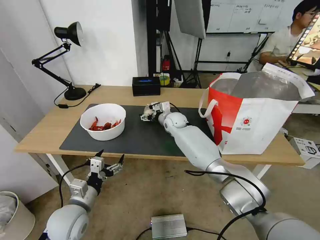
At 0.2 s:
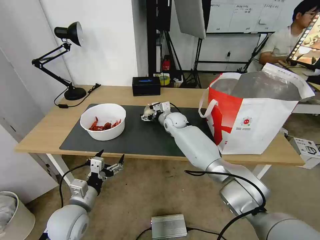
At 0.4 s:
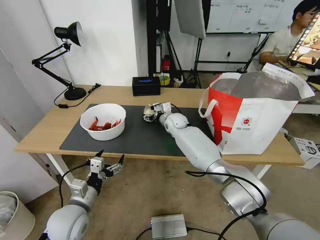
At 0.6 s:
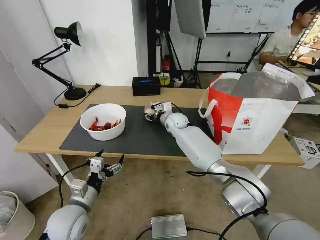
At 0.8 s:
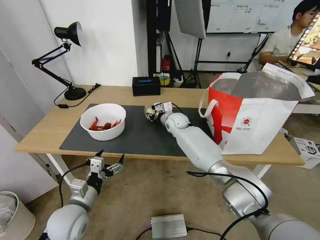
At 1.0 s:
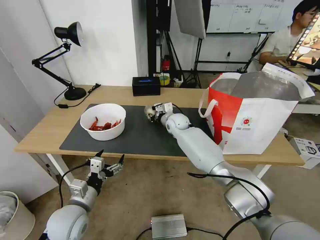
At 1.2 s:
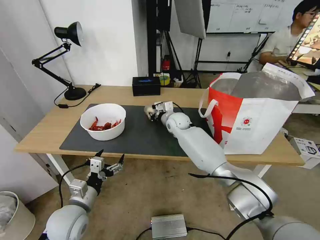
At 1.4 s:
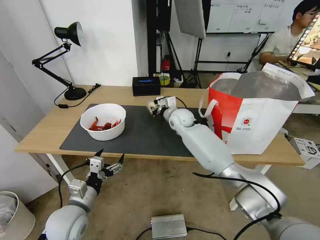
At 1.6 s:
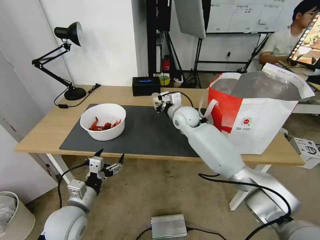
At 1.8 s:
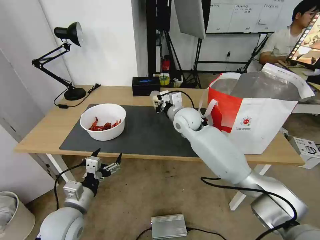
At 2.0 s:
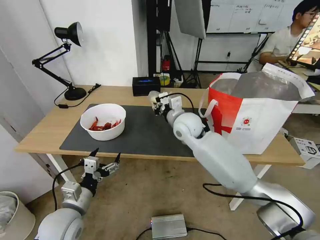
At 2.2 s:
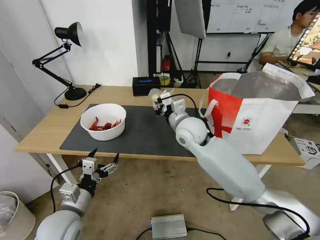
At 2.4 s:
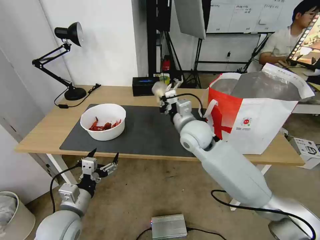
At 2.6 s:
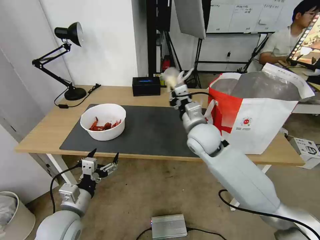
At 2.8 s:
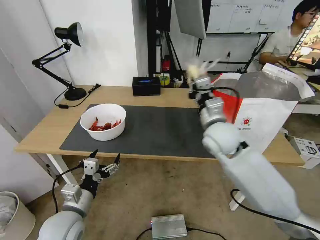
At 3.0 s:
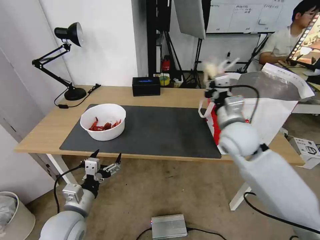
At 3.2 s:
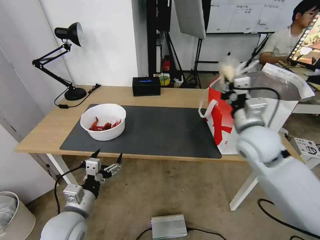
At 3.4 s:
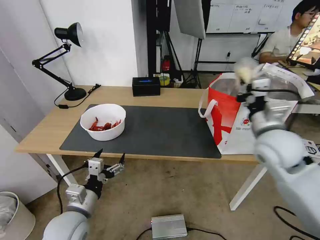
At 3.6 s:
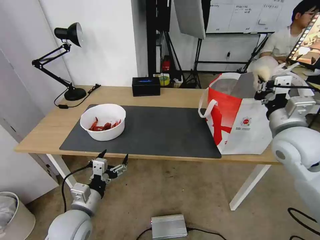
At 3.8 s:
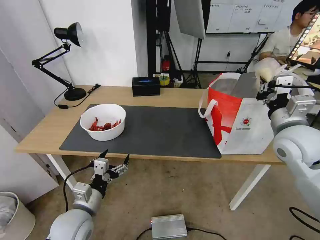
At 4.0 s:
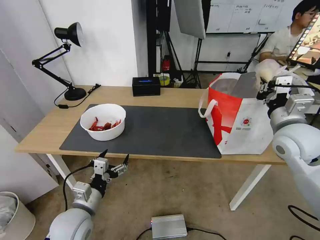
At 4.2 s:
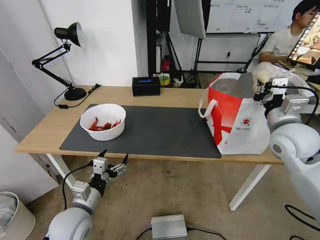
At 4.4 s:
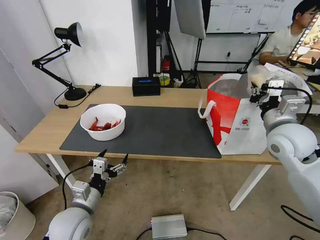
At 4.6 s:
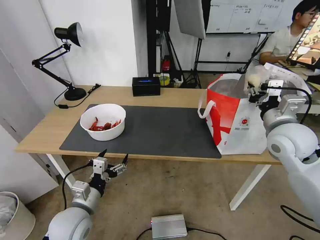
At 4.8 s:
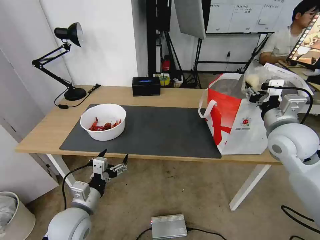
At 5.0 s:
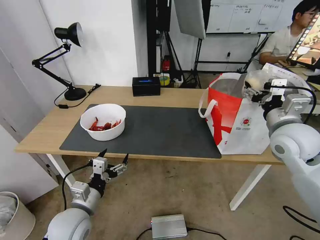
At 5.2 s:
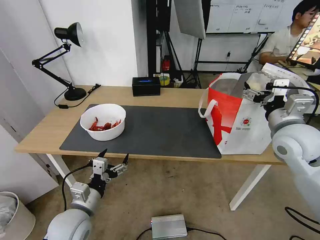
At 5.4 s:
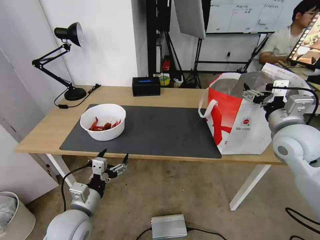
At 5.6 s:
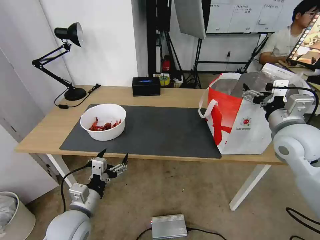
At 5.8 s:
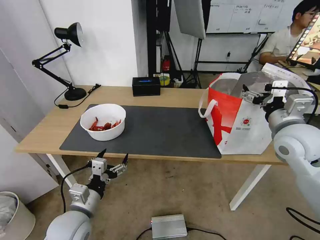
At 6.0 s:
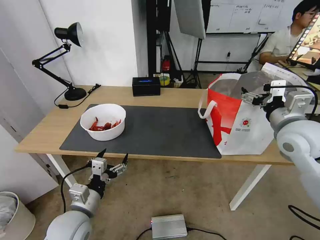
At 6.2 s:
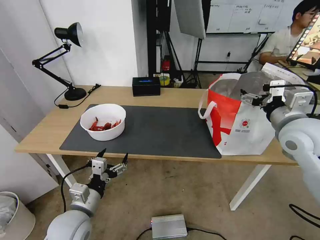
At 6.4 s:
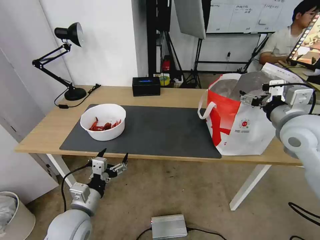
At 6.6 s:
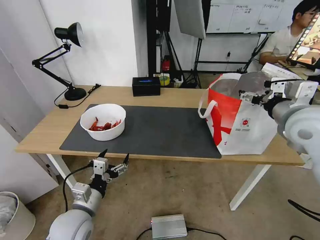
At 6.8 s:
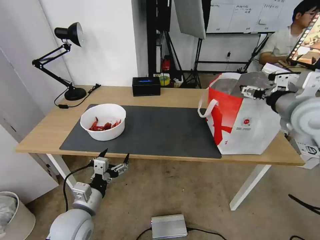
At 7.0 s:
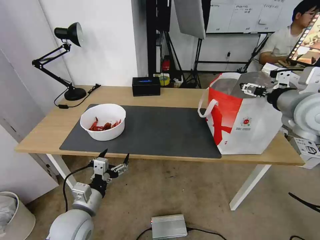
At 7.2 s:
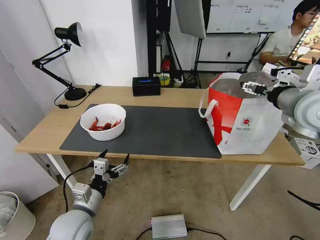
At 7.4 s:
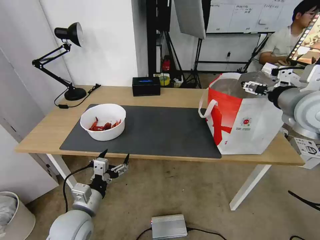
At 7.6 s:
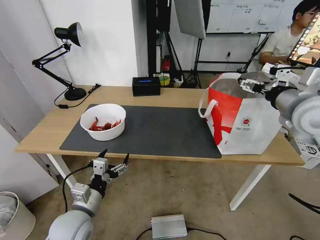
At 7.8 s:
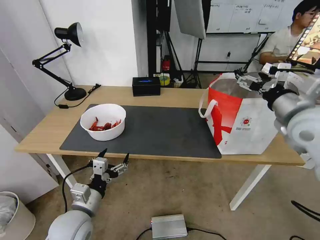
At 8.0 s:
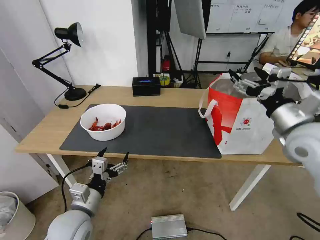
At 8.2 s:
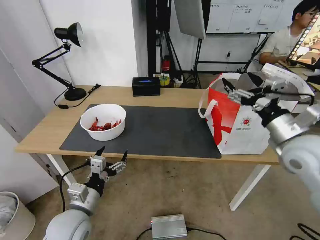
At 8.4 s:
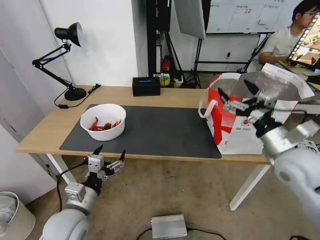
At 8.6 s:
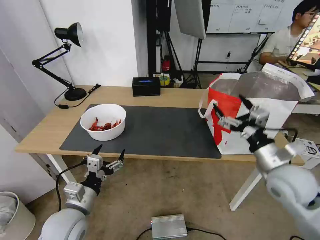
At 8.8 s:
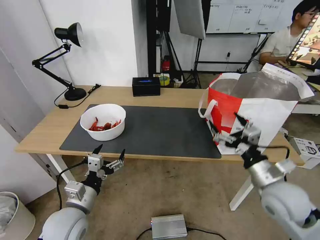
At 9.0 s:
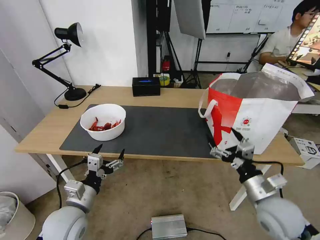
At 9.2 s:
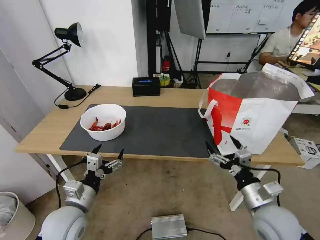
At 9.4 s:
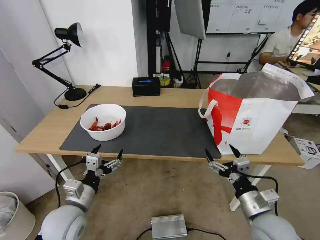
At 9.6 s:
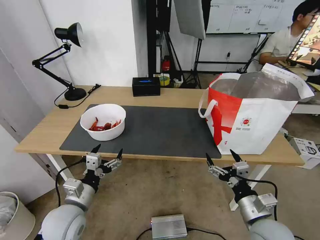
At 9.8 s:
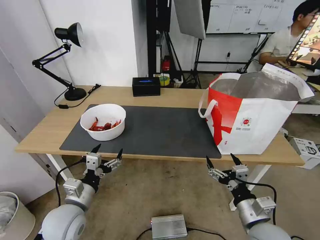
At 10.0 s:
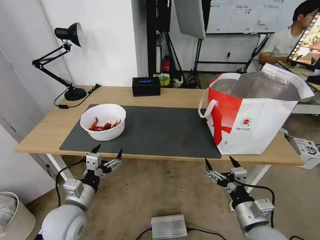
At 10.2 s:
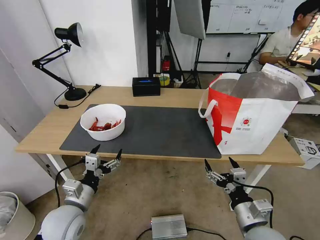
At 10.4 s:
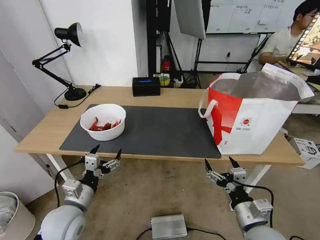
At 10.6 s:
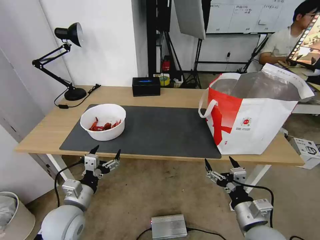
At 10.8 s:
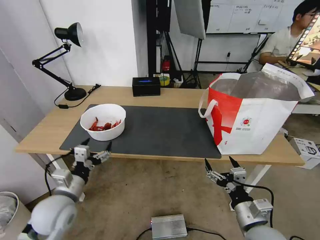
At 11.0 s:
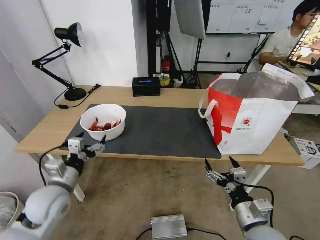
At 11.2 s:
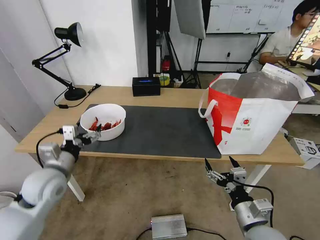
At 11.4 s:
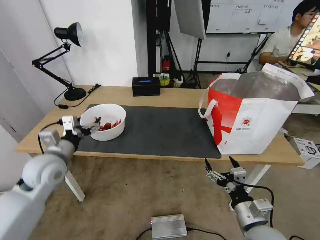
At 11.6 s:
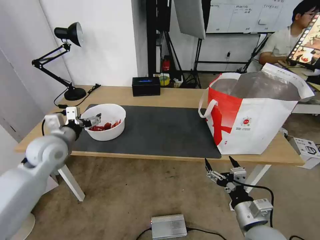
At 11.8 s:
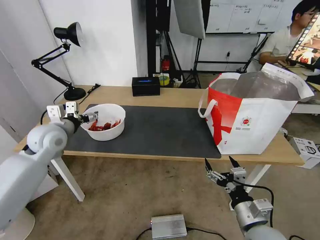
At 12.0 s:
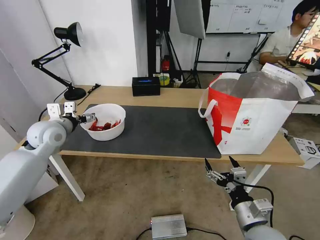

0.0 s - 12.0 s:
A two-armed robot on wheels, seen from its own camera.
Task of the whole recording: Pick up the trash from the table and place it into the takeout bag.
0.0 s - 1.6 s: The right gripper is displaced upward and backward by approximately 10 cm, and closes its fingers.
1.6 s - 3.0 s: The right gripper goes about 20 cm backward and to the right.
3.0 s - 4.4 s: The right gripper is displaced to the right by approximately 10 cm.
4.4 s - 6.0 s: The right gripper opens.
6.0 s - 7.6 s: The right gripper travels upward by approximately 5 cm.
7.6 s - 9.0 s: The right gripper is displaced downward and backward by about 25 cm.
9.0 s - 10.4 s: The right gripper heads backward, covering approximately 5 cm.
10.4 s - 12.0 s: The left gripper moves forward, upward and to the left, roughly 25 cm.

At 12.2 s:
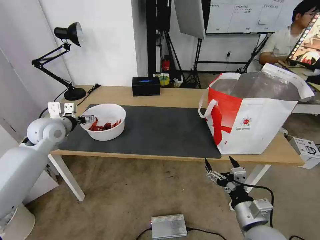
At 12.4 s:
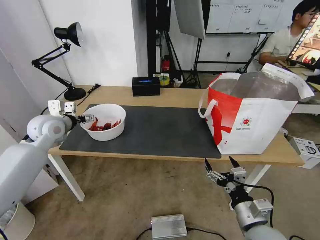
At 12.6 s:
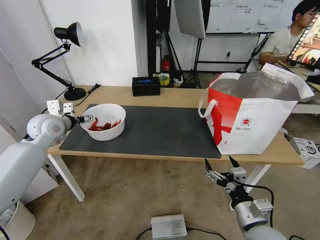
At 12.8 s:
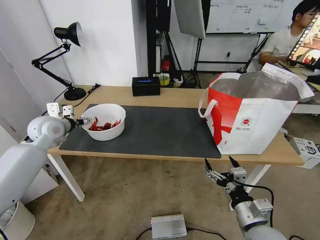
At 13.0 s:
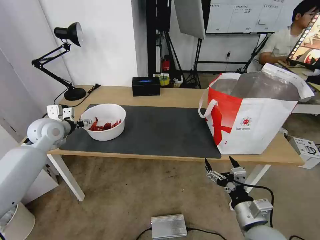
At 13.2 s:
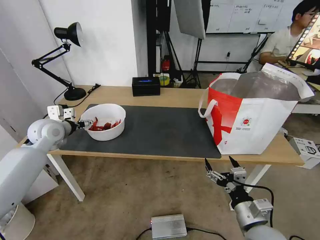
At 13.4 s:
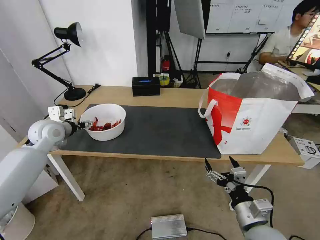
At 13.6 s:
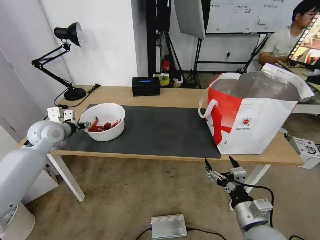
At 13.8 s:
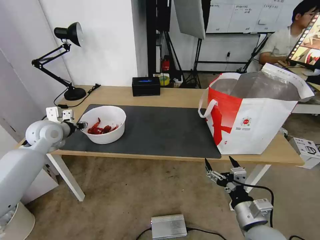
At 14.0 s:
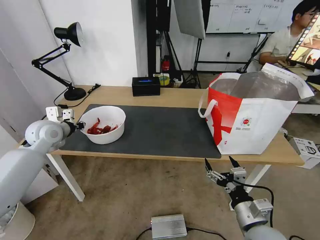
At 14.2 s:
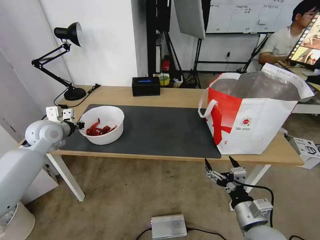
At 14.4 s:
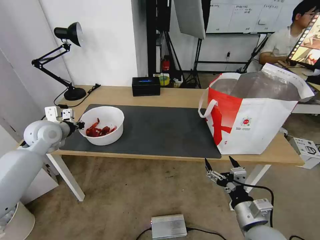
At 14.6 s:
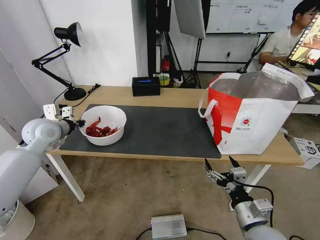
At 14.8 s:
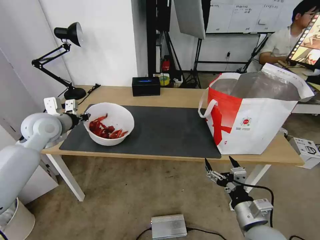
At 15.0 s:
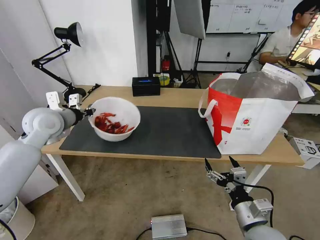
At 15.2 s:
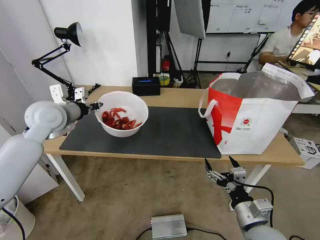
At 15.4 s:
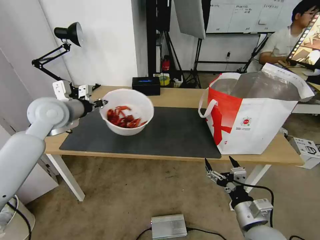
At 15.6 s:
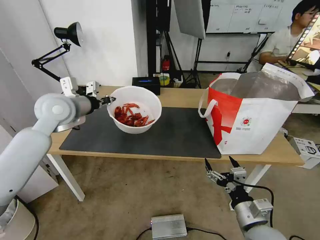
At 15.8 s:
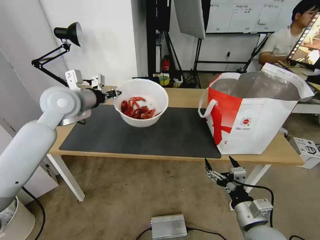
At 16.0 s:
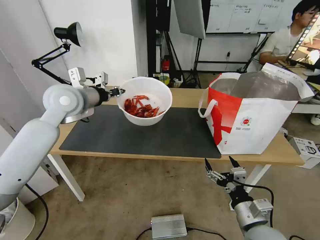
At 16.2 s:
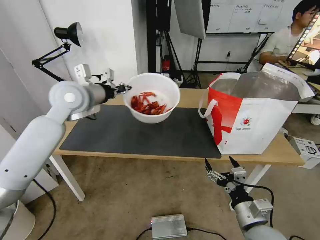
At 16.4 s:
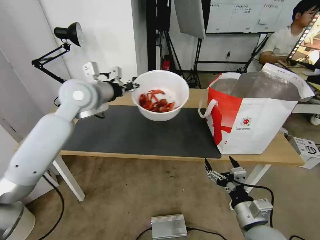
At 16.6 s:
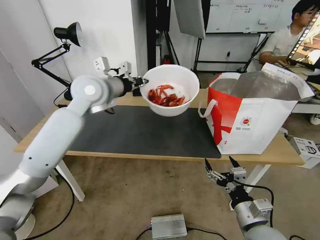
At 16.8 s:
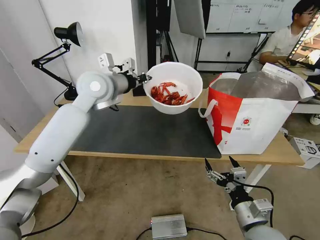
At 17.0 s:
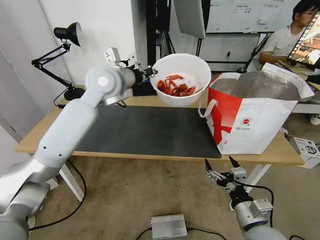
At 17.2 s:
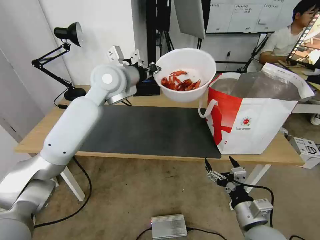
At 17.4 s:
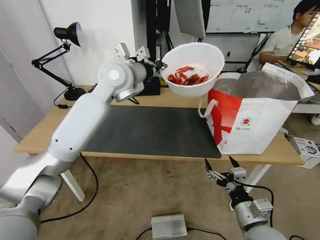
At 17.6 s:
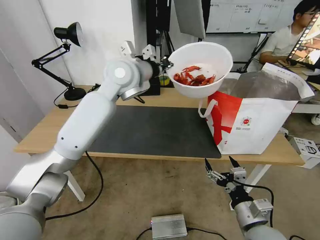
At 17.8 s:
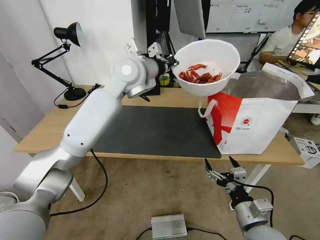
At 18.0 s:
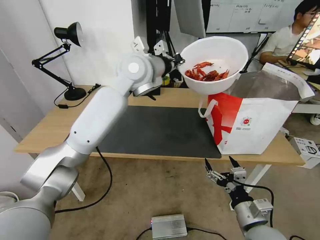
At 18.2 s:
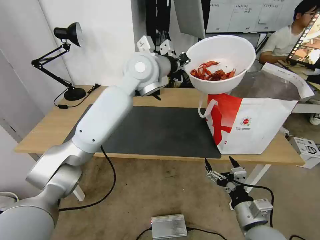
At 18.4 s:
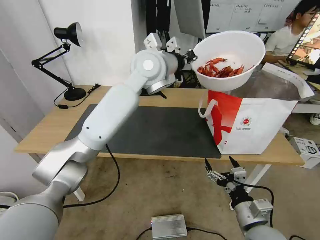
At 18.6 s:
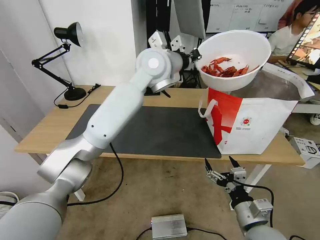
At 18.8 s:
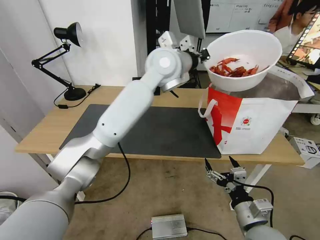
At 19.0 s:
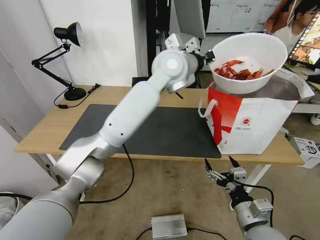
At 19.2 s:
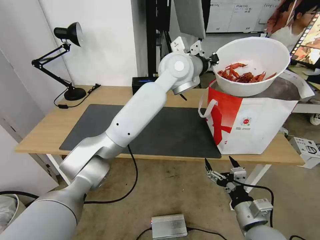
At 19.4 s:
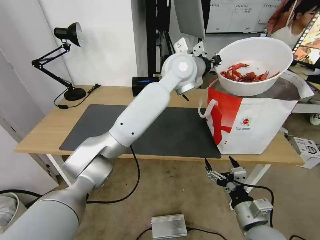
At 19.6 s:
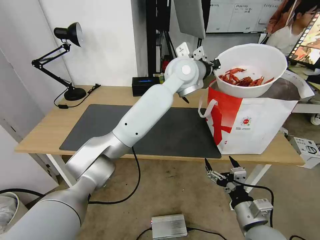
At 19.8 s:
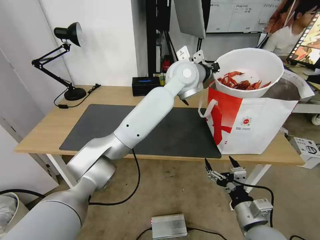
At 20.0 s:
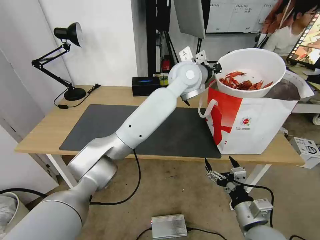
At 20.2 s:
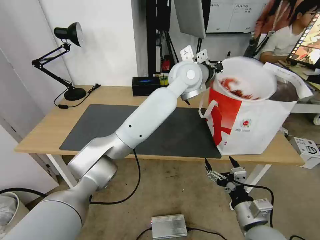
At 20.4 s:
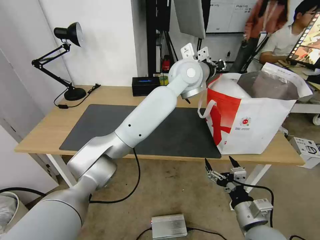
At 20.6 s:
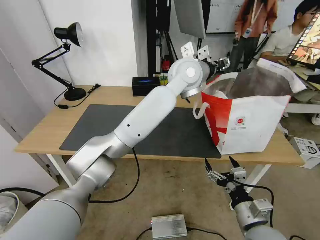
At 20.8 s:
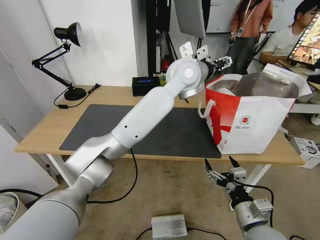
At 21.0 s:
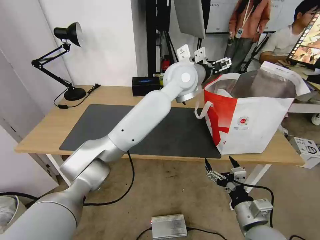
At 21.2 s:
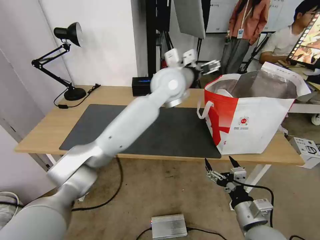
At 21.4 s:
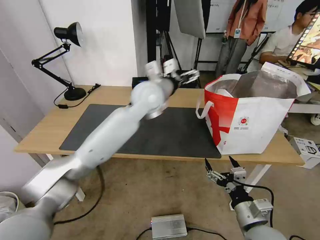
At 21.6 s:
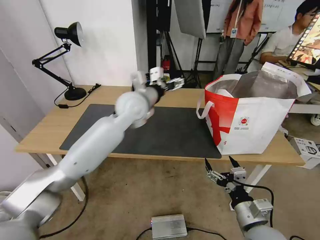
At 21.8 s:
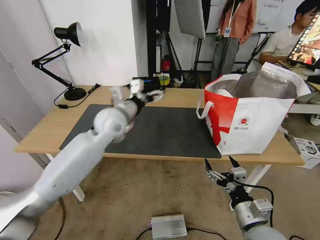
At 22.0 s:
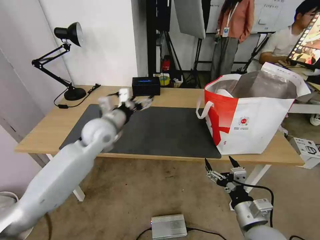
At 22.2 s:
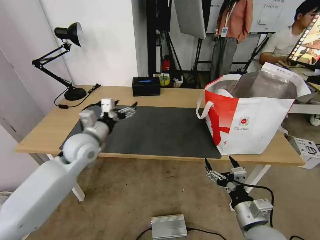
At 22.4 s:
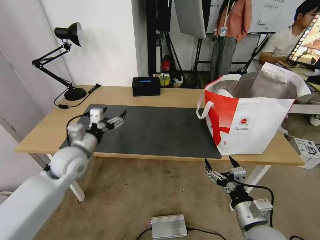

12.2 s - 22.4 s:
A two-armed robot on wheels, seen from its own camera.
Task of the whole recording: Pick up the trash from the table and place it into the takeout bag.
12.2 s - 13.6 s: The left gripper closes up.
13.6 s - 15.2 s: The left gripper heads upward and to the right, covering roughly 10 cm, and closes.
15.2 s - 16.6 s: The left gripper travels to the right and upward by roughly 15 cm.
16.6 s - 18.0 s: The left gripper goes about 15 cm to the right.
18.0 s - 19.4 s: The left gripper moves to the right, about 10 cm.
19.4 s - 21.0 s: The left gripper opens.
21.0 s - 22.4 s: The left gripper is displaced to the left, downward and backward by roughly 40 cm.
